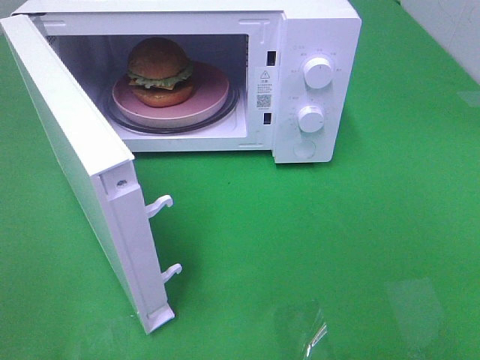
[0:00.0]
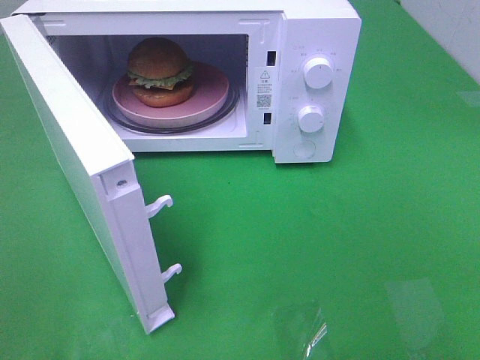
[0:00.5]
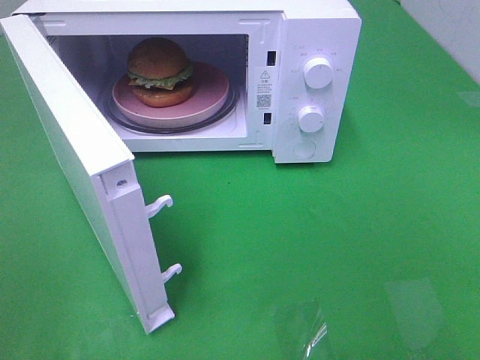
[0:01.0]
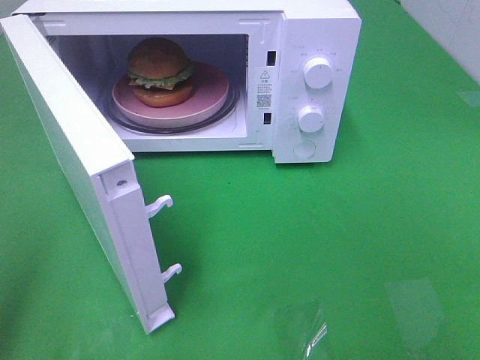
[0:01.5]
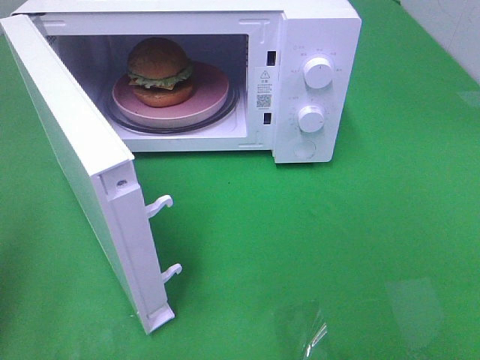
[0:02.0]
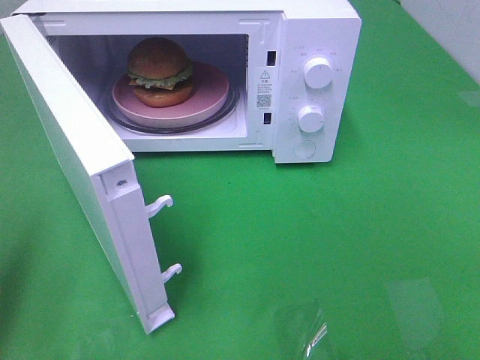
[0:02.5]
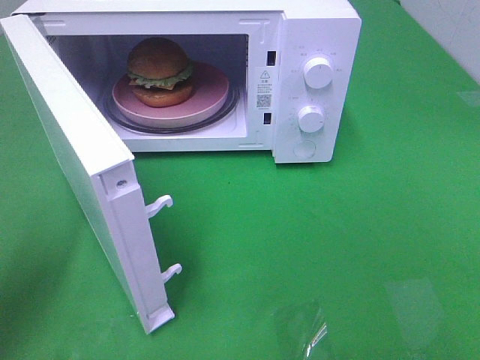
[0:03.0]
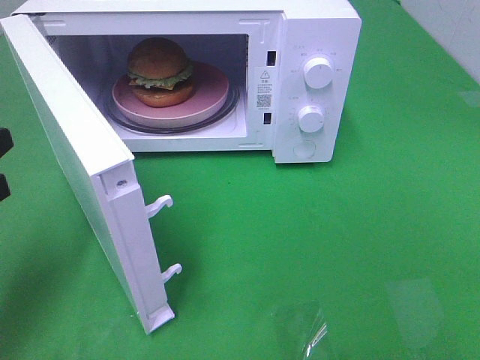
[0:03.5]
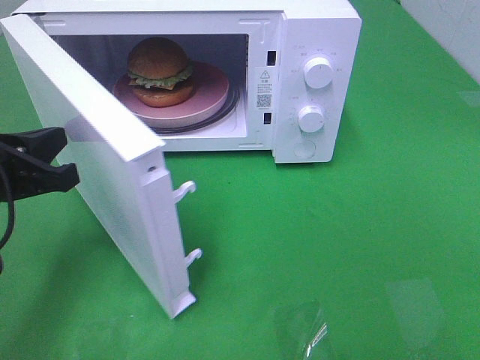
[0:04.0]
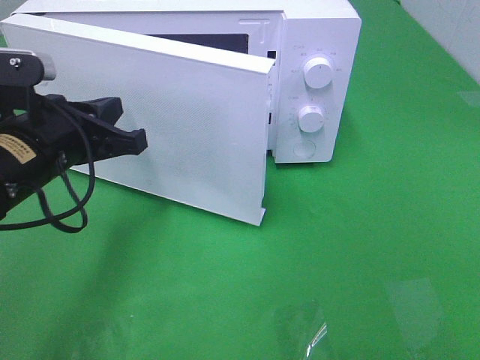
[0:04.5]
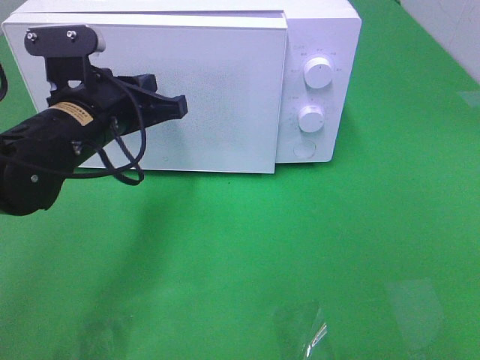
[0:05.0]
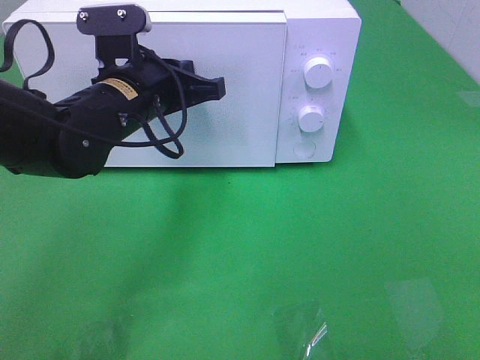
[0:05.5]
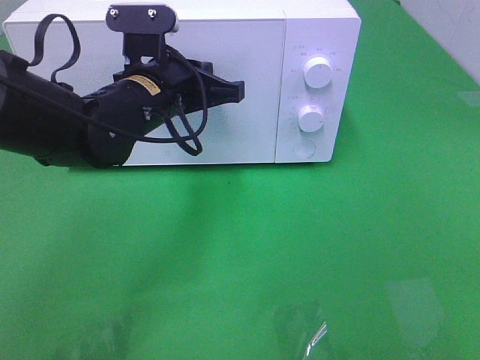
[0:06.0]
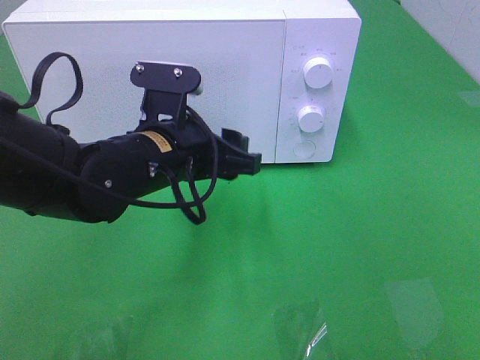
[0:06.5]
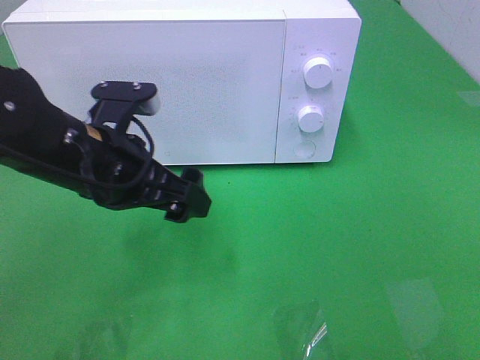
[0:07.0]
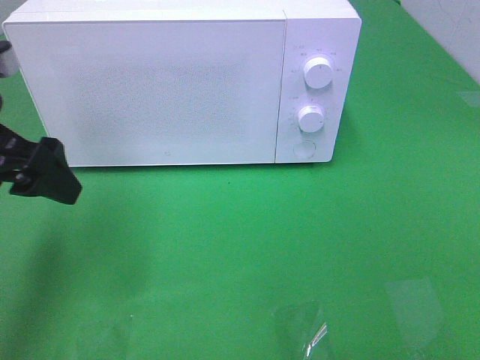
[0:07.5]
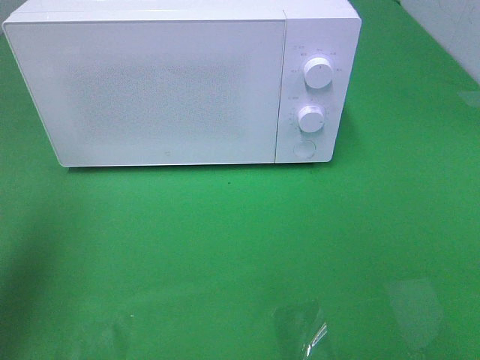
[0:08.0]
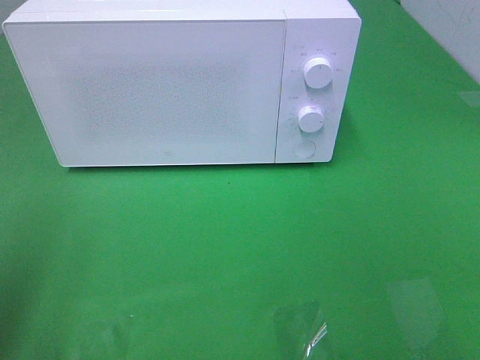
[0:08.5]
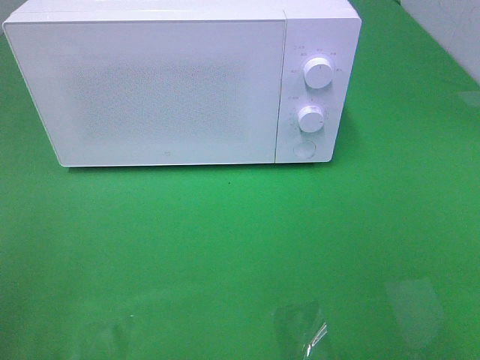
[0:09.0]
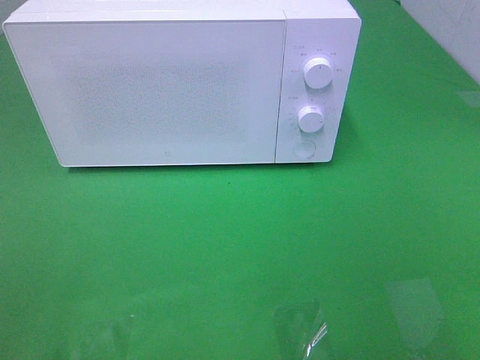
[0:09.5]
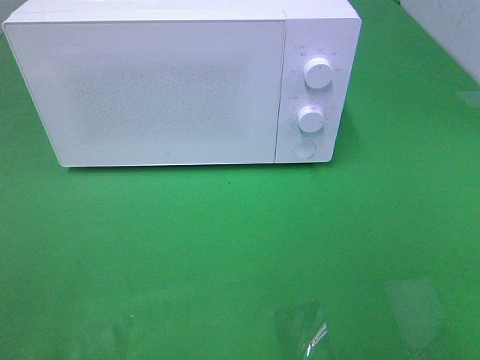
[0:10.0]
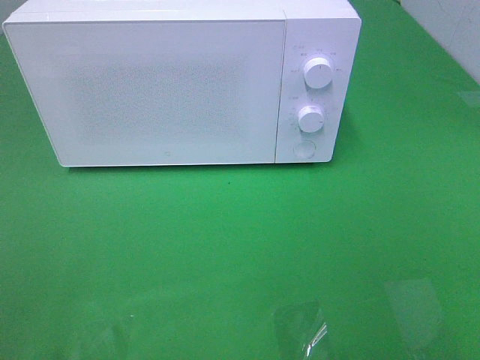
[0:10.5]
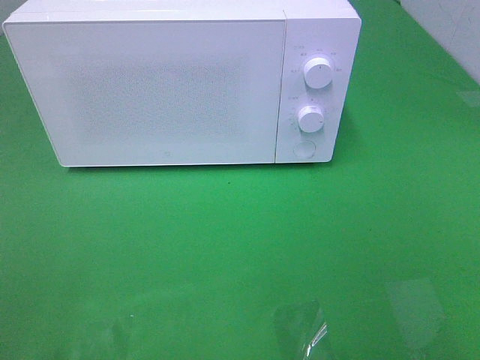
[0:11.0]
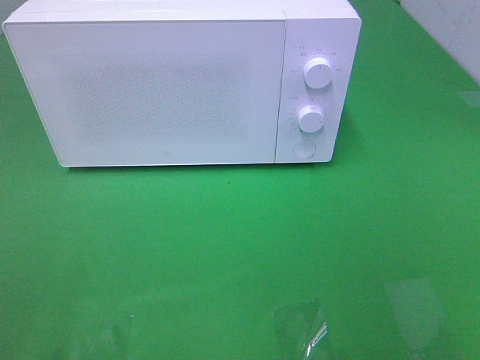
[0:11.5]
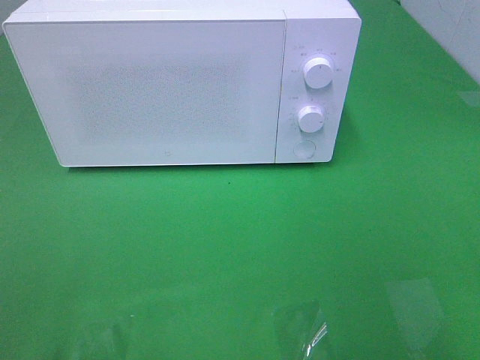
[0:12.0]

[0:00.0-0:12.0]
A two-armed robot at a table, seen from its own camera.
Task of the whole recording: Heat the burger.
Step, 0:00.0 to 0:06.5: Left hand: close the microwave door.
0:02.0 to 0:04.0: The left gripper travels forward, to the right and downward by some 15 cm.
0:04.0 to 0:06.0: The left gripper shifts some 20 cm to the right and forward.
0:06.0 to 0:08.0: The left gripper goes some 30 cm to the left, backward and upward, and opens.
0:08.0 to 0:10.0: The left gripper shifts approximately 20 cm backward.

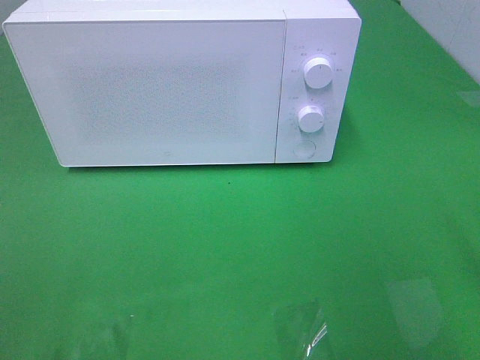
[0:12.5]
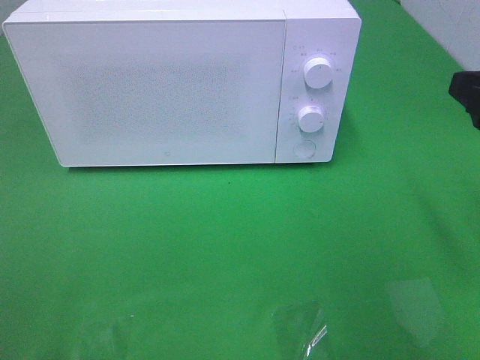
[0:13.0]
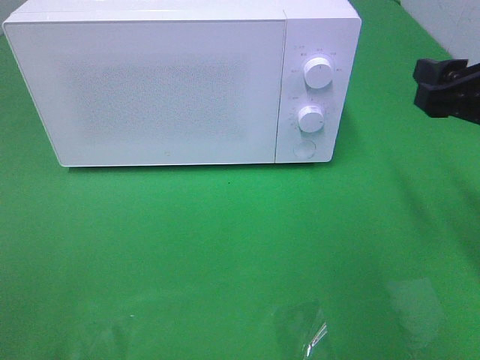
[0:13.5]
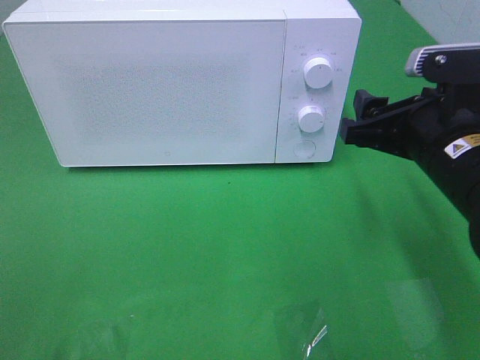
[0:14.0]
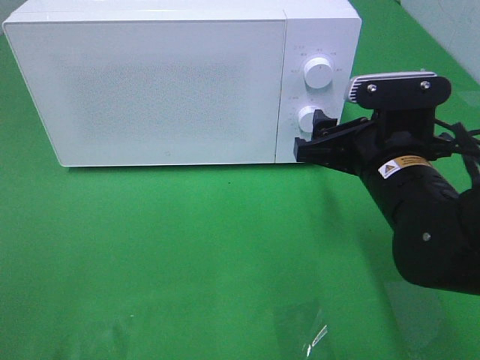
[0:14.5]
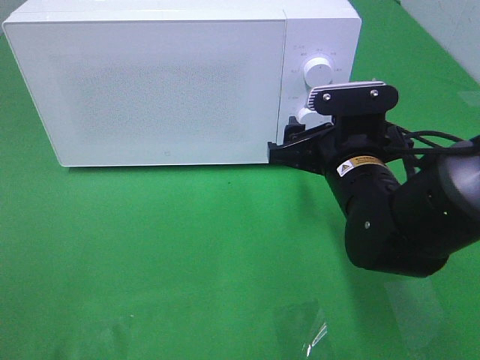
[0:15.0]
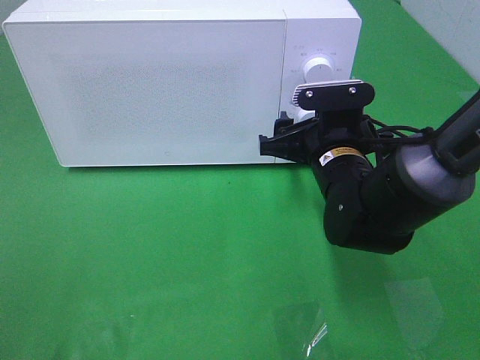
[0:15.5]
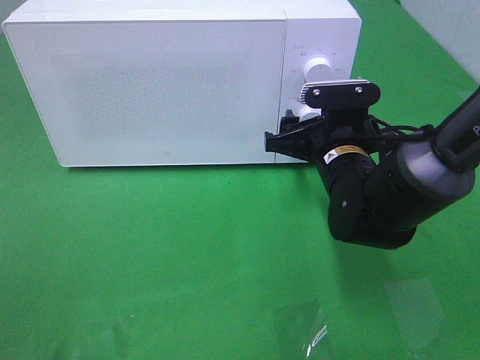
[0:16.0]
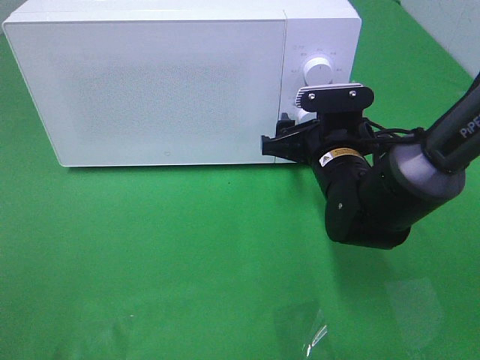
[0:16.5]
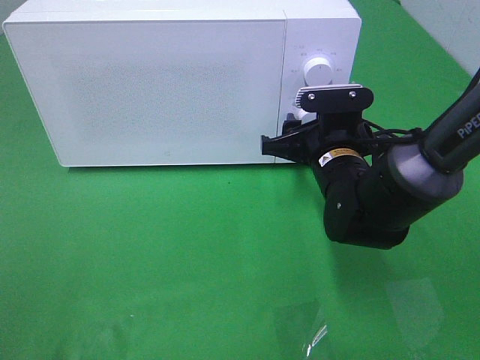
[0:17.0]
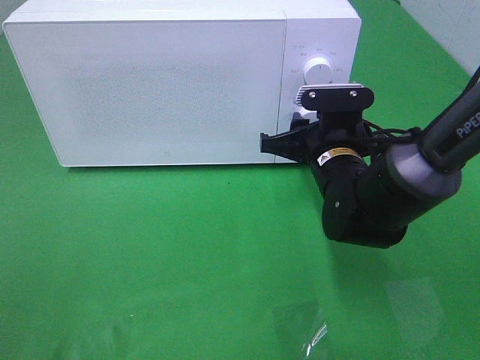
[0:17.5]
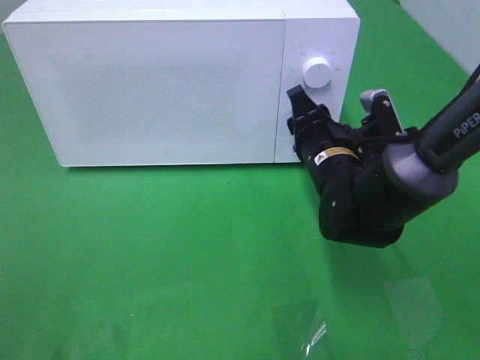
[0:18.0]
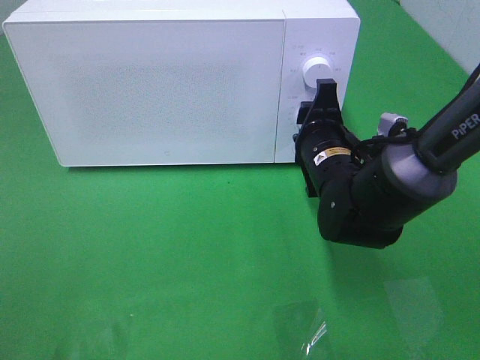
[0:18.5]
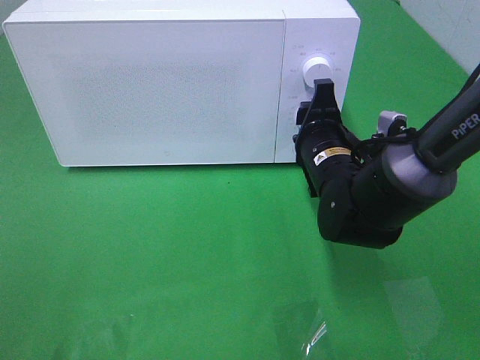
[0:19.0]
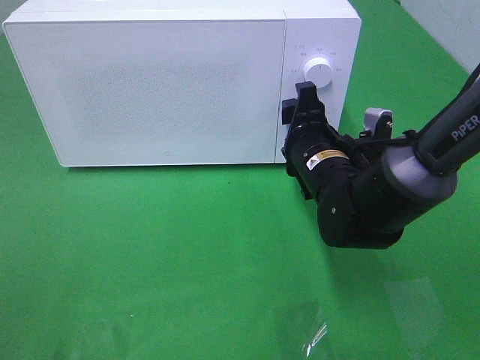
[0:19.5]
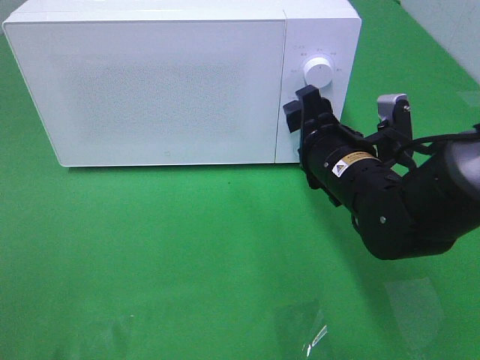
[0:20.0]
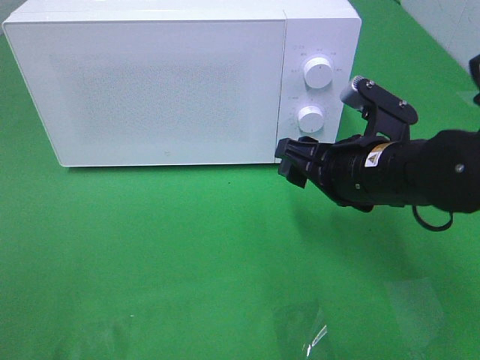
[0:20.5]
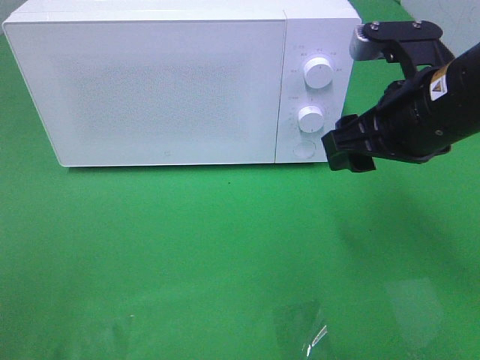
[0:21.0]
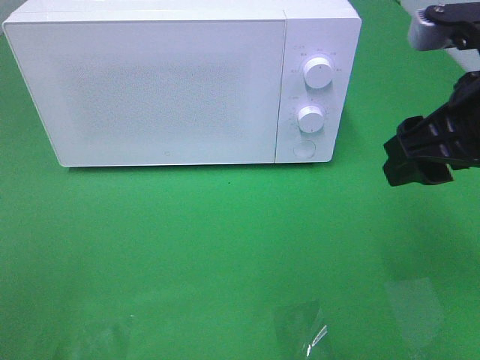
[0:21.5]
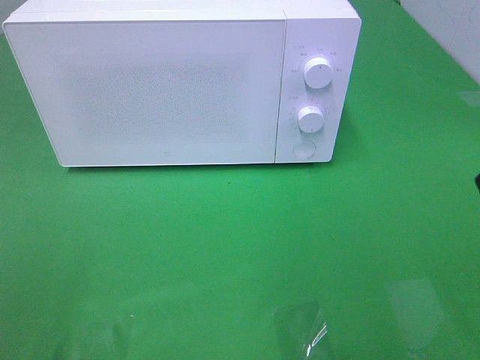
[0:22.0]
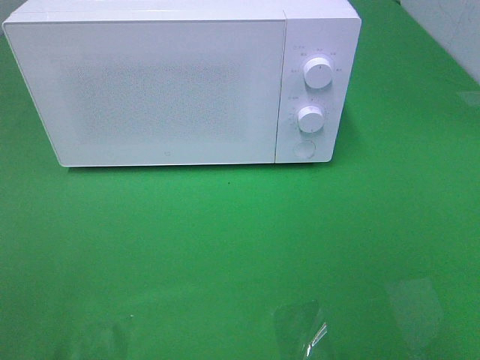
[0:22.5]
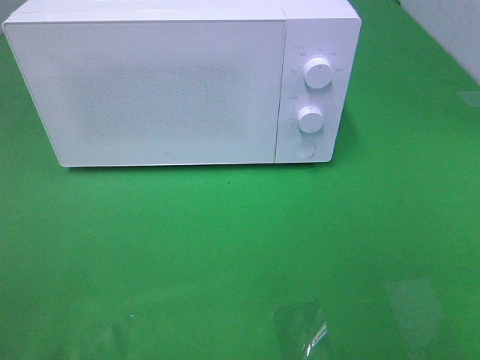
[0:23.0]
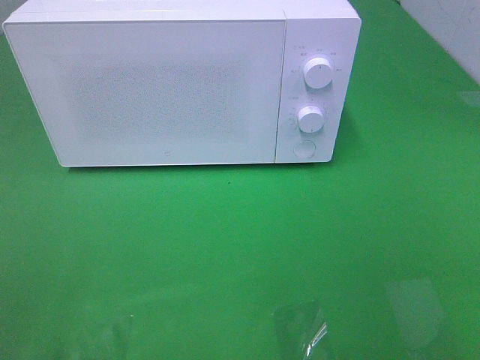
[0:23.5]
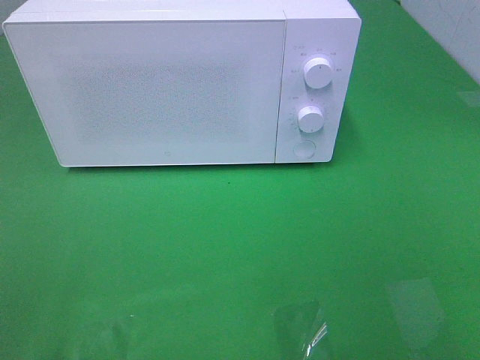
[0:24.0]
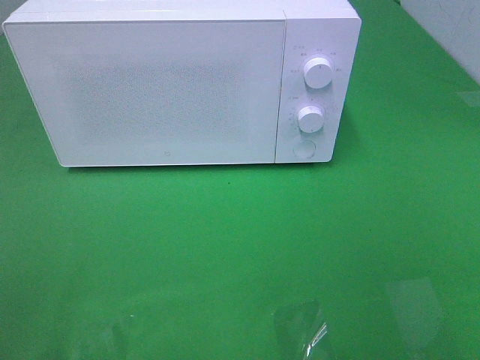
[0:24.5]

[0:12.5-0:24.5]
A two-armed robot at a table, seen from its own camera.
Task of the whole recording: Heat the burger.
Step, 0:12.5 to 0:19.5: Right hand: twist timer button.
0:12.5 to 0:14.5: The right gripper travels to the left, downward and forward by approximately 20 cm.
0:14.5 to 0:16.5: The right gripper shifts some 10 cm forward and downward.
0:16.5 to 0:18.5: The right gripper closes its fingers.
0:18.5 to 0:20.5: The right gripper shifts some 5 cm backward.
0:20.5 to 0:22.5: The right gripper heads backward, upward and to the right, covering approximately 30 cm.

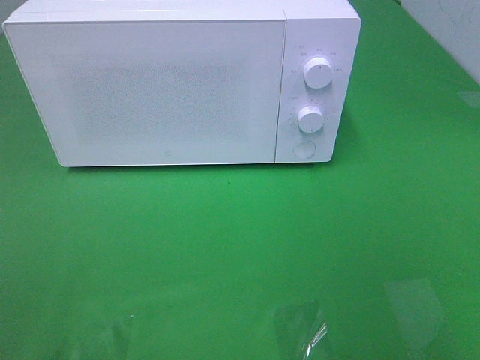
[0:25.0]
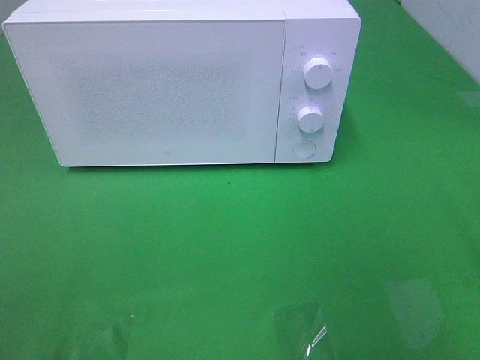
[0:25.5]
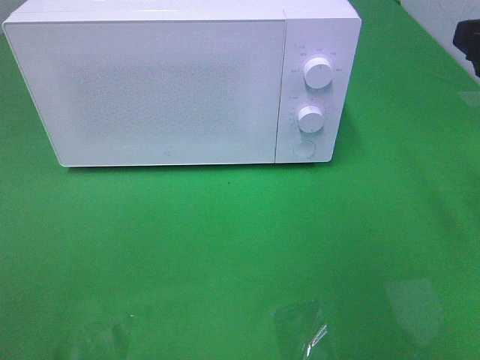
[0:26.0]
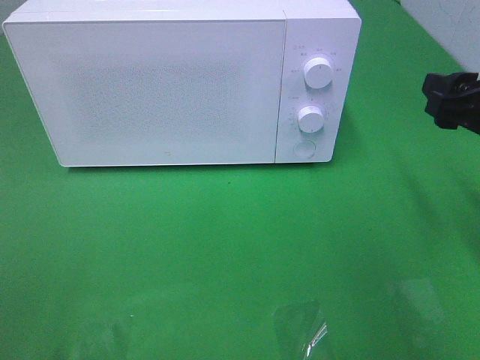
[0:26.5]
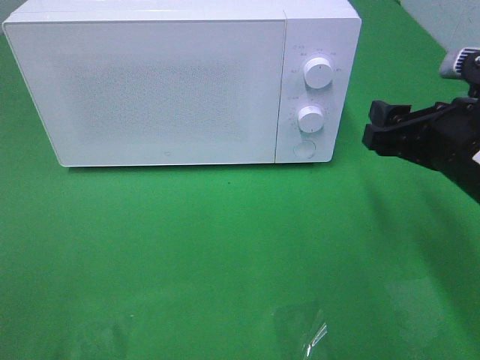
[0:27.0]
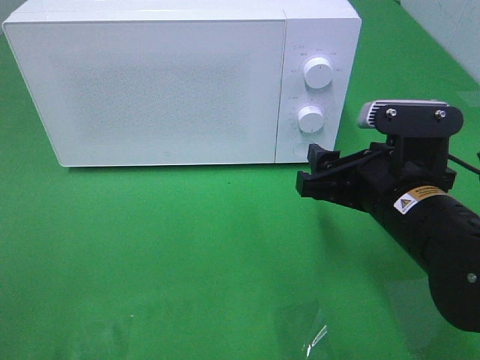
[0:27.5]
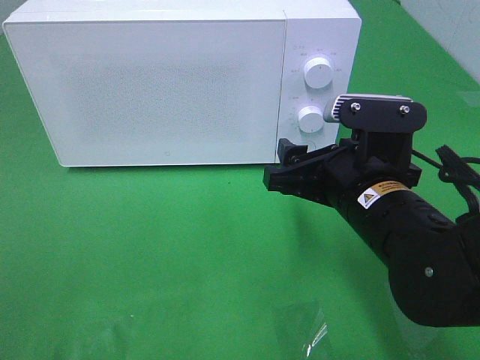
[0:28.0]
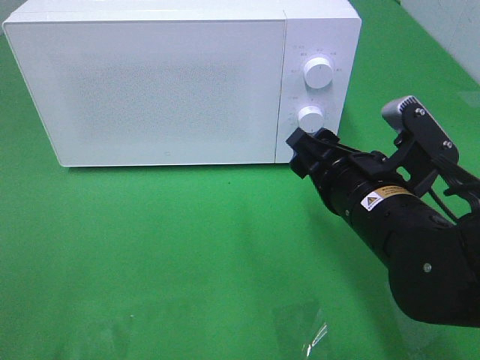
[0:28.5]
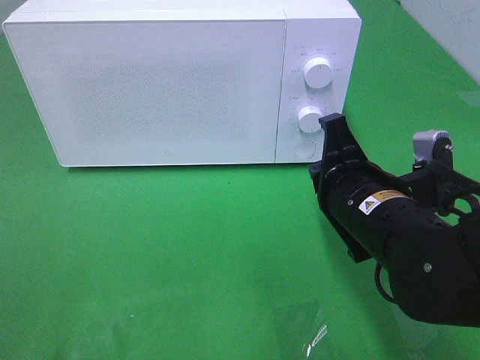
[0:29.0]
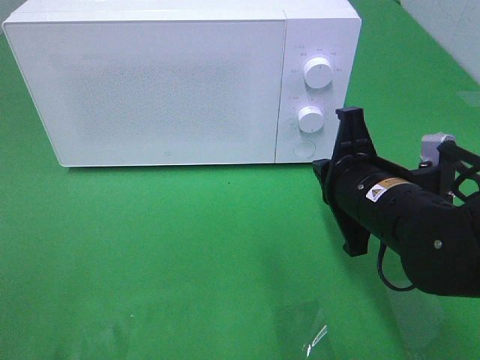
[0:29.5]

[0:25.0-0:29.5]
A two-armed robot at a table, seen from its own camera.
Task of the whole recording: Heat the burger.
0:25.0 to 0:27.0: The right gripper goes approximately 25 cm forward, downward and to the left.
0:27.0 to 0:29.5: The right gripper goes some 5 cm to the left, and closes.
